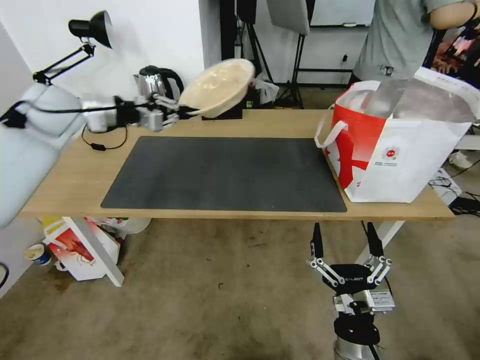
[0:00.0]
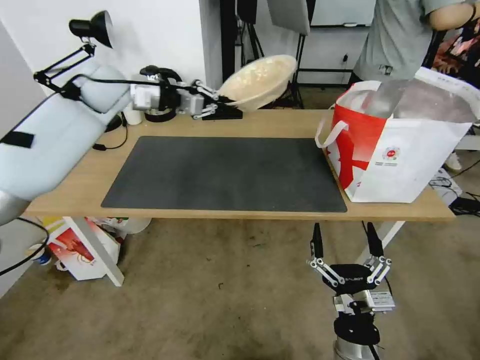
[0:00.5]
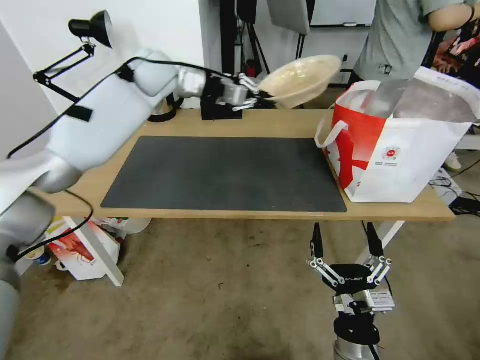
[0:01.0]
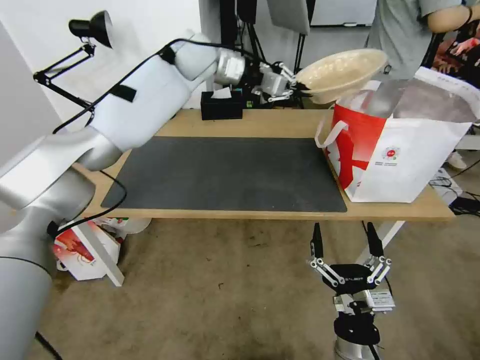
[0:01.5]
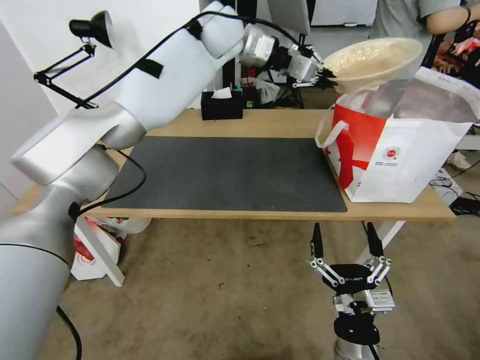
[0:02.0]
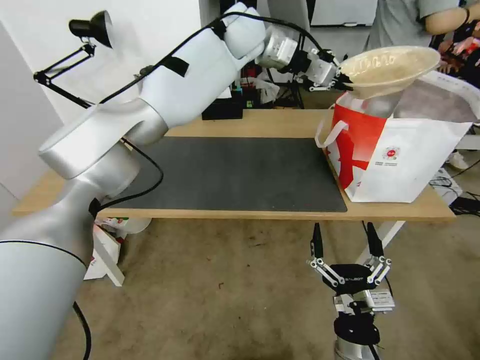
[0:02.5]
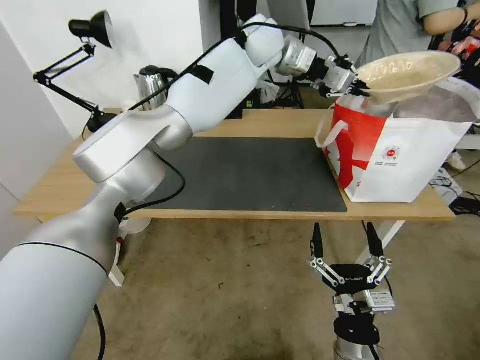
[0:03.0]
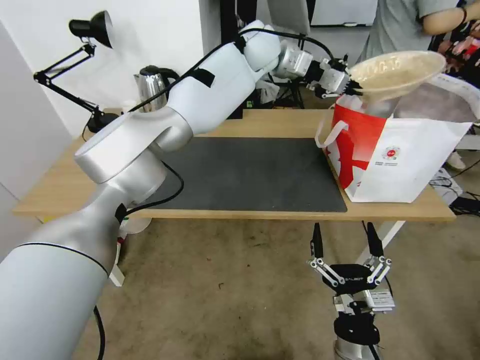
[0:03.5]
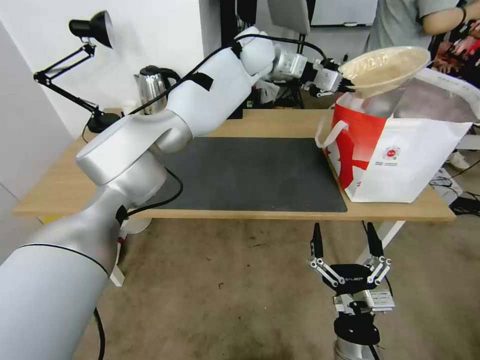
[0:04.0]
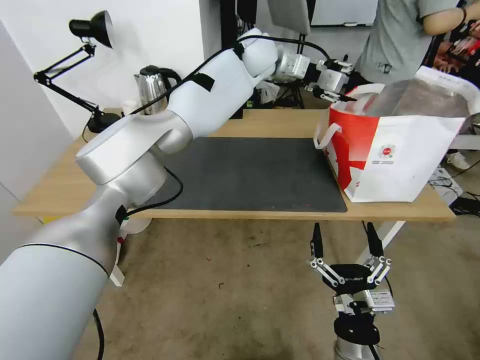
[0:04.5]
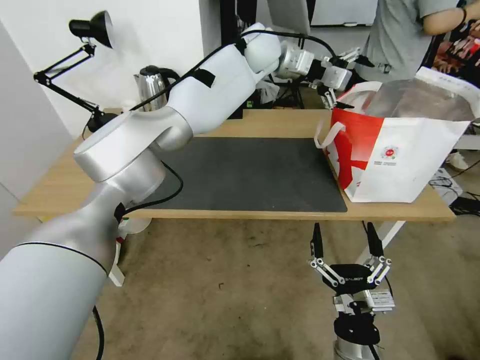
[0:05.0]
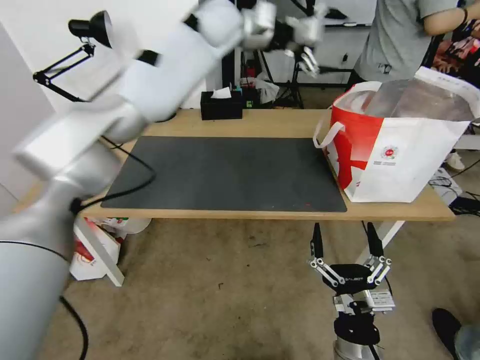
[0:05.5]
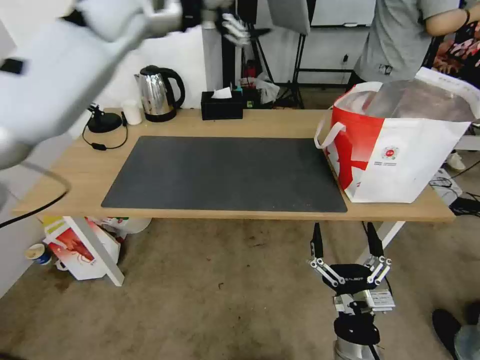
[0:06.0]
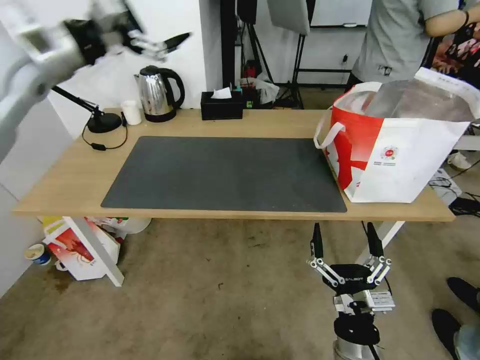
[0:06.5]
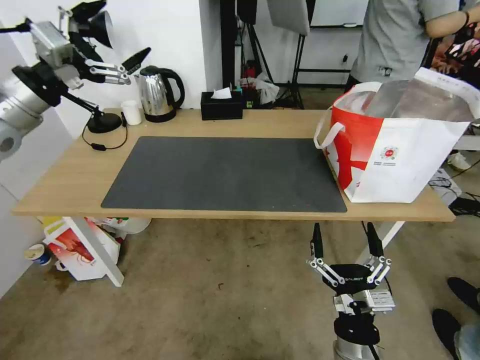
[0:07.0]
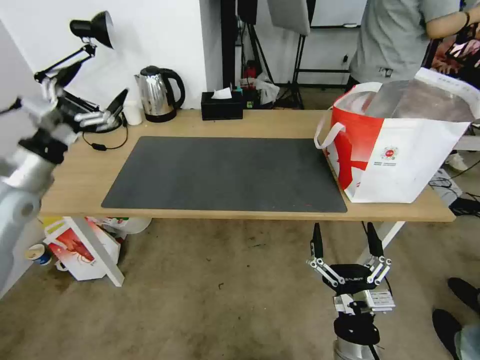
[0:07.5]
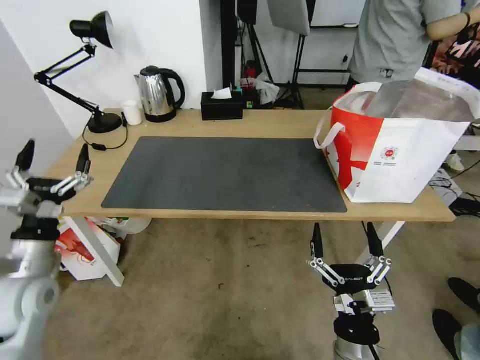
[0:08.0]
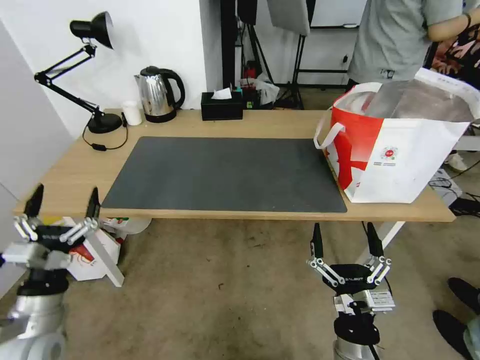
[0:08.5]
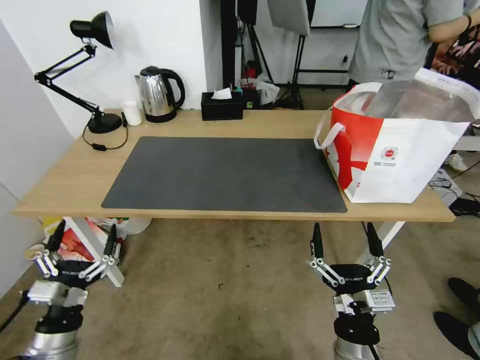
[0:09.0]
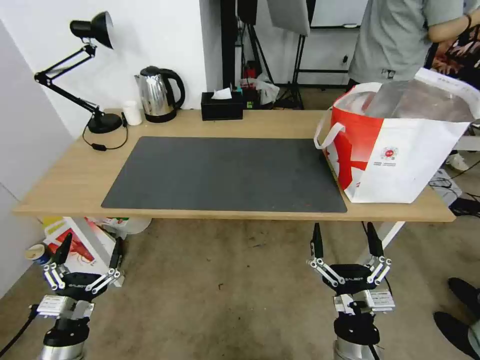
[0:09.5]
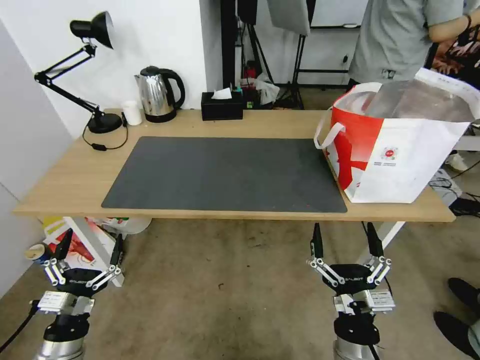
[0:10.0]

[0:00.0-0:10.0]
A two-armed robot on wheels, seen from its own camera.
Task of the whole recording: Pick up the trash from the table and place it into the takeout bag.
0:00.0 to 0:02.0: The left gripper is displaced to the right by about 30 cm.
0:02.0 to 0:04.0: The left gripper heads to the right, covering about 5 cm.
0:04.0 to 0:06.0: The left gripper goes roughly 25 cm to the left, and opens.
0:06.0 to 0:08.0: The left gripper travels downward, backward and to the left by approximately 50 cm.
0:08.0 to 0:10.0: The left gripper moves backward, downward and to the right, about 20 cm.

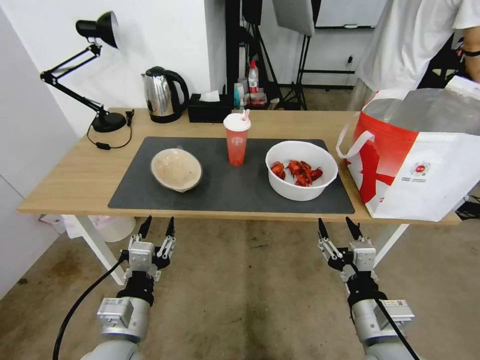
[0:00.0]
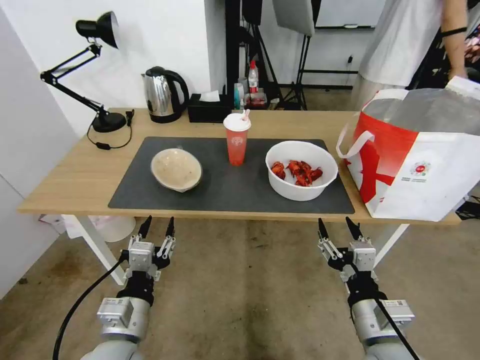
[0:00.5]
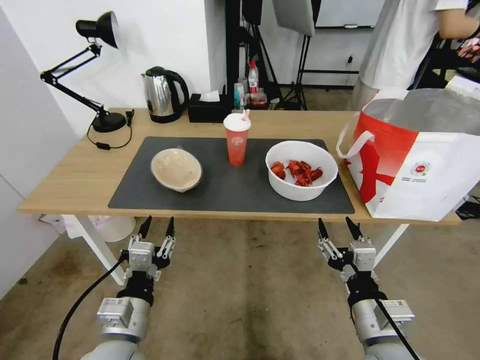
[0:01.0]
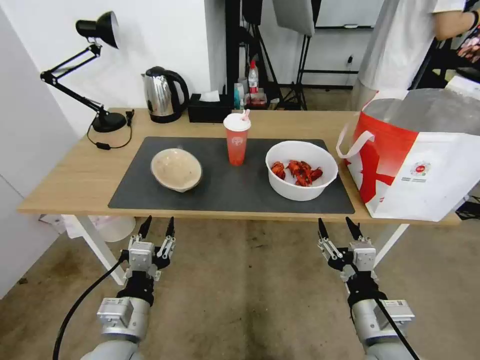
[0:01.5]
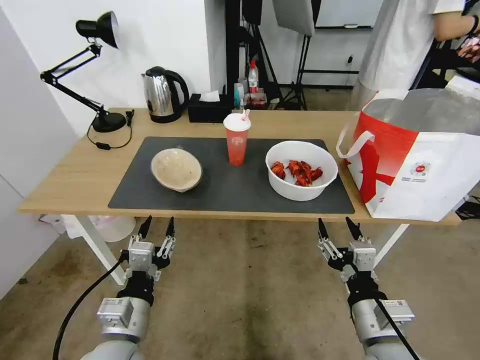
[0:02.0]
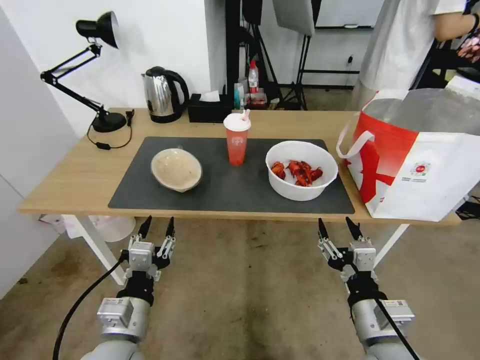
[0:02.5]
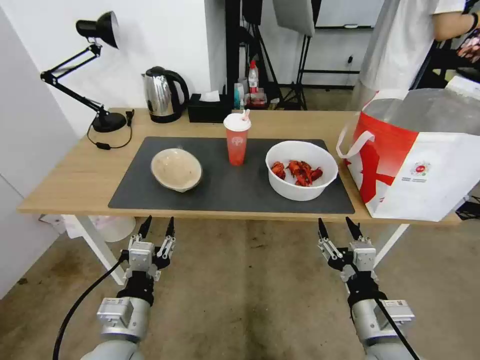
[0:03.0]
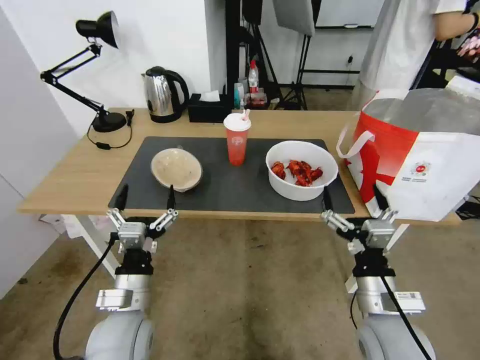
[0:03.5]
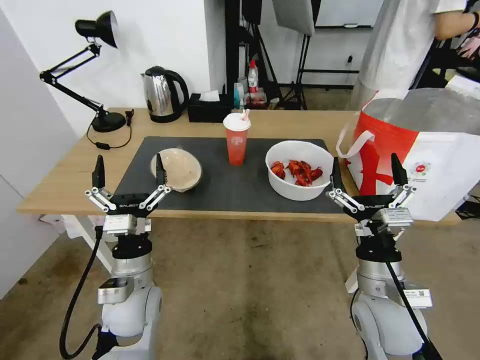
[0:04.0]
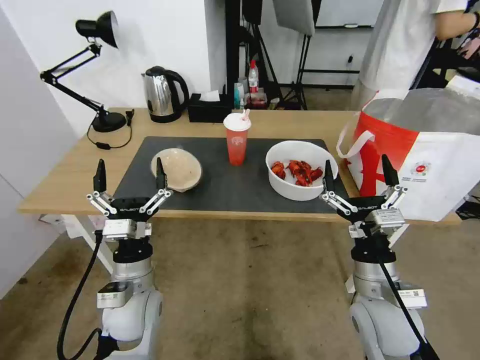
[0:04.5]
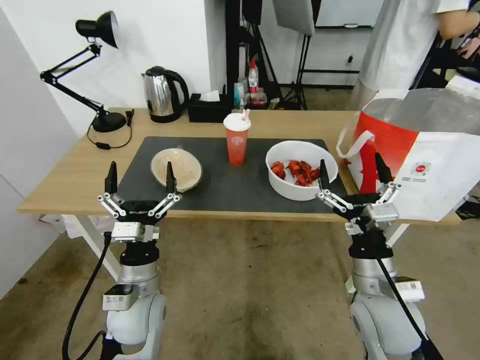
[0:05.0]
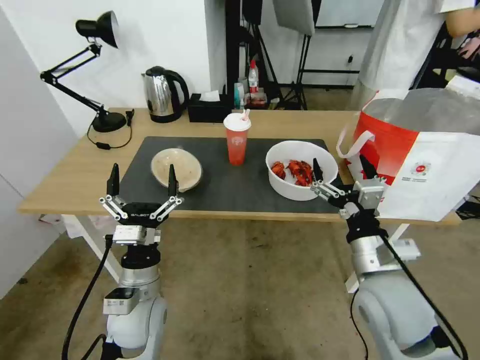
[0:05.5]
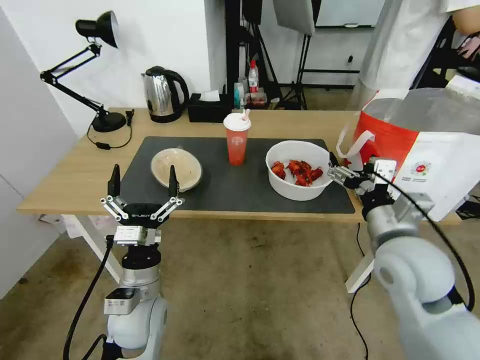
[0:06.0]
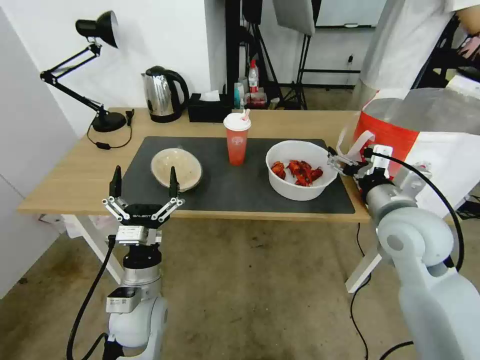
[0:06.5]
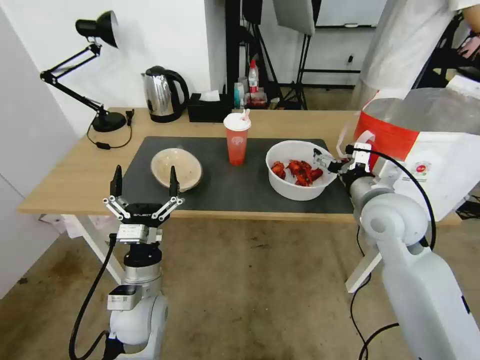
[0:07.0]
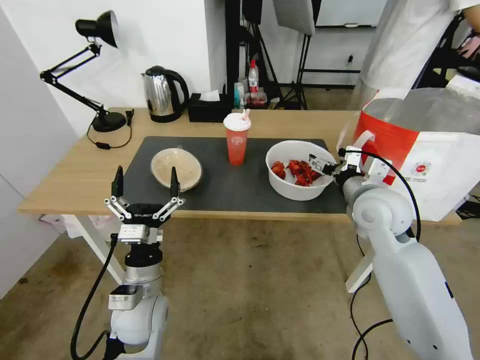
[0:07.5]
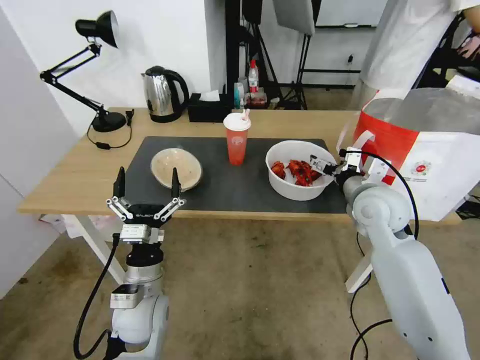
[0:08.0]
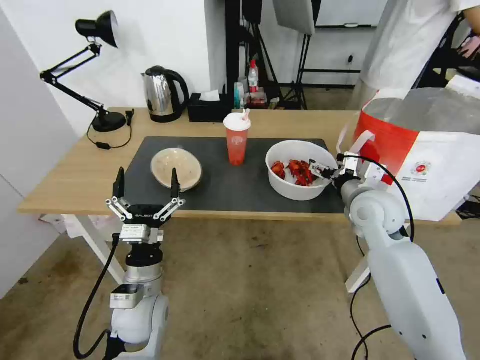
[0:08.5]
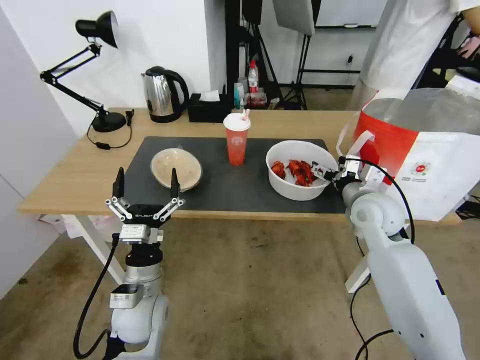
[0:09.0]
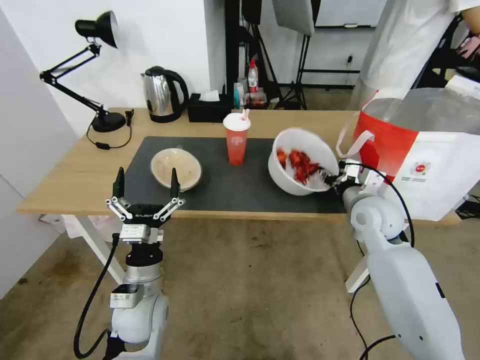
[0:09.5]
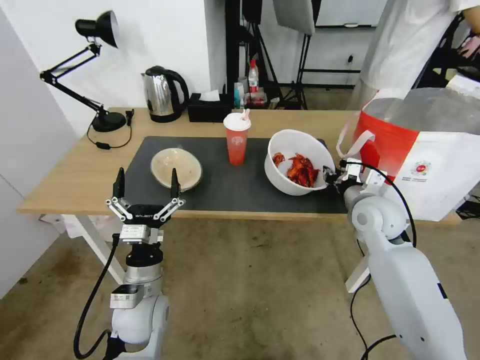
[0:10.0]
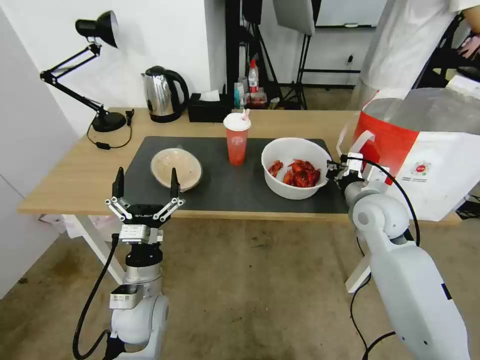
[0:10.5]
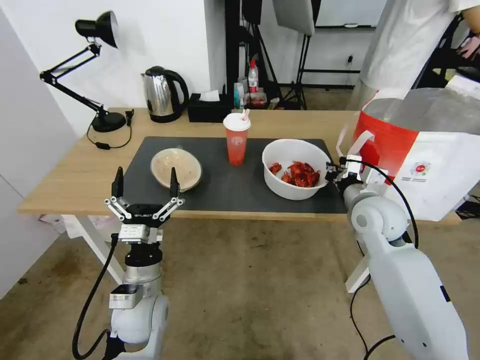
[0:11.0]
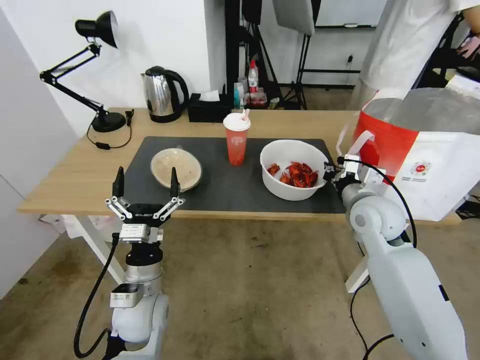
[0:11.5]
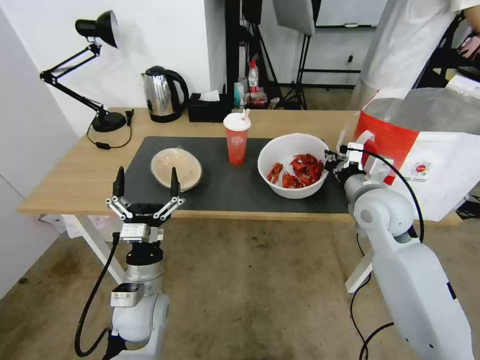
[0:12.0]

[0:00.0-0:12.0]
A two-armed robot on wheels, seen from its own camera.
Task of the whole recording: Pick up the trash from the table and place it into the takeout bag.
0:02.0 to 0:04.0: The two grippers go some 10 cm forward. The left gripper opens, while the right gripper opens.
0:04.0 to 0:06.0: The right gripper moves upward and forward, some 10 cm.
0:06.0 to 0:08.0: The right gripper shifts some 10 cm forward.
0:08.0 to 0:10.0: The right gripper closes.
0:10.0 to 0:12.0: The right gripper shifts by approximately 5 cm.

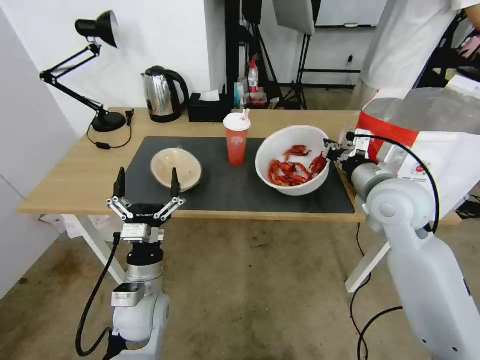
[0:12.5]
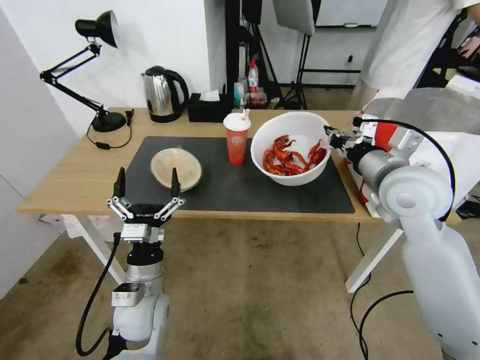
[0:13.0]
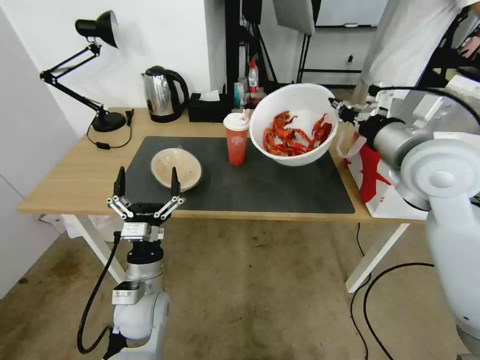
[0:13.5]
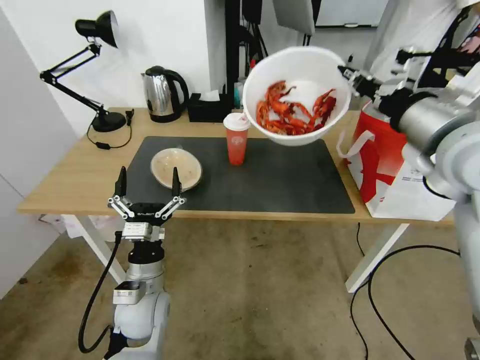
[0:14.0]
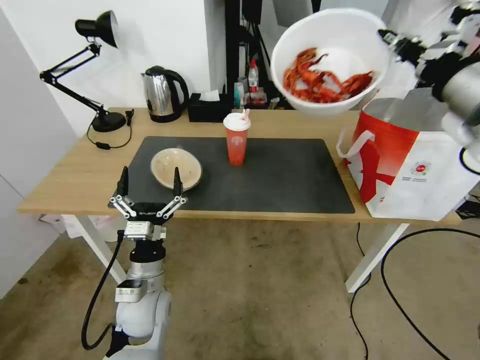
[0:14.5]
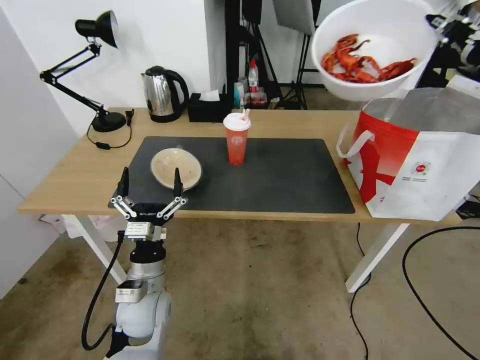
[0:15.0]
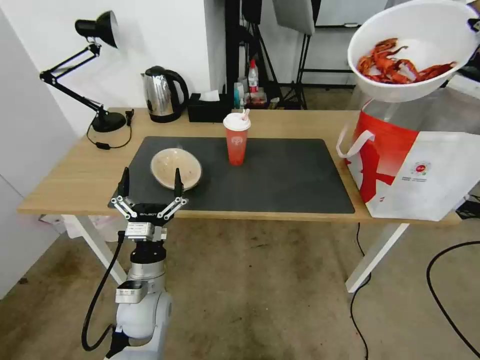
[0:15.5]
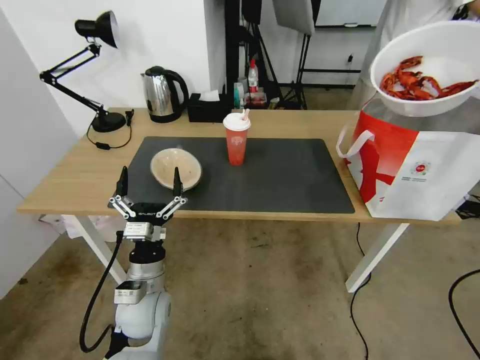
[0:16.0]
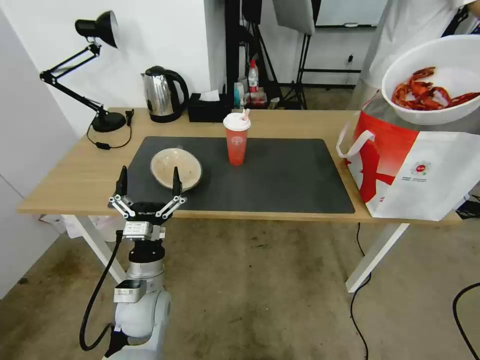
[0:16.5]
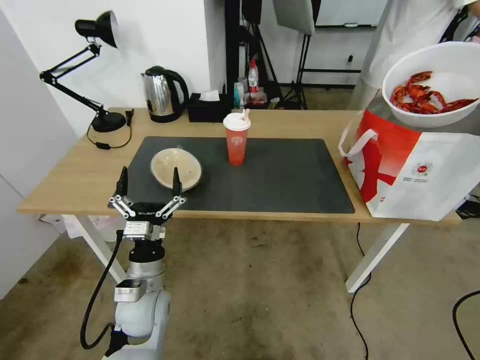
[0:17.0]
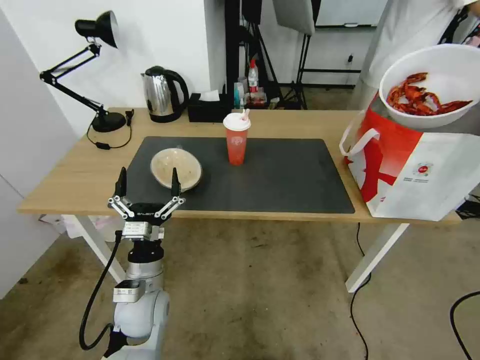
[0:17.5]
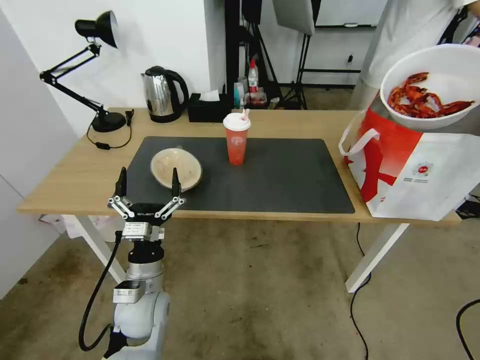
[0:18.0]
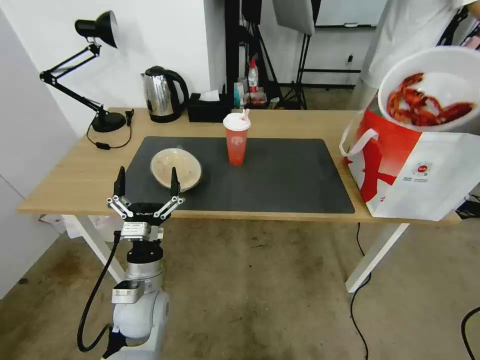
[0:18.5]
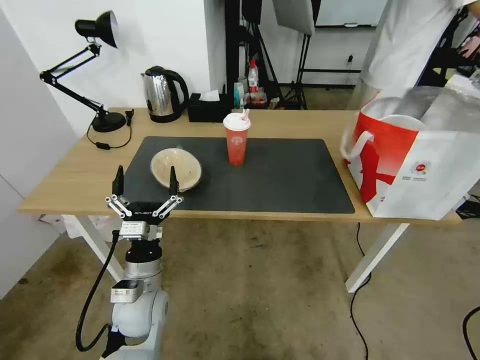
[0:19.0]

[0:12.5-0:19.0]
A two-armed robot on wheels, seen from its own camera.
Task of the whole recording: Pick up the trash from the table and place it into the takeout bag.
0:12.5 to 0:14.5: The right gripper travels upward by about 20 cm.
0:14.5 to 0:17.0: The right gripper goes roughly 15 cm to the right.
0:17.0 to 0:19.0: The right gripper opens its fingers.
